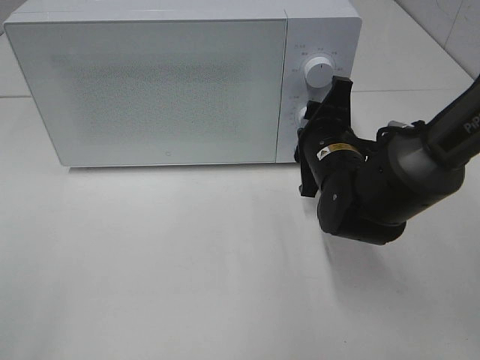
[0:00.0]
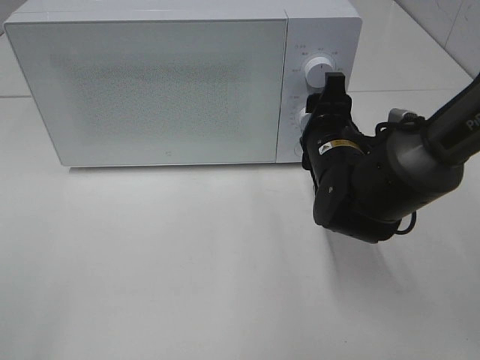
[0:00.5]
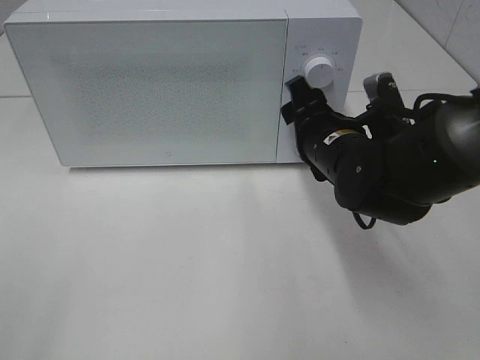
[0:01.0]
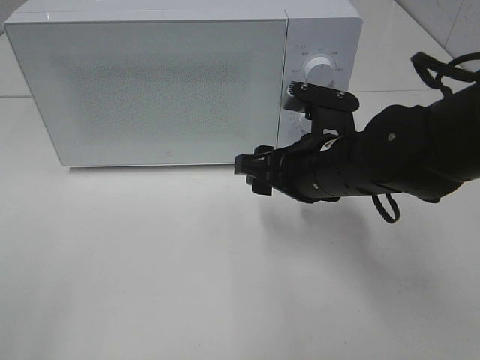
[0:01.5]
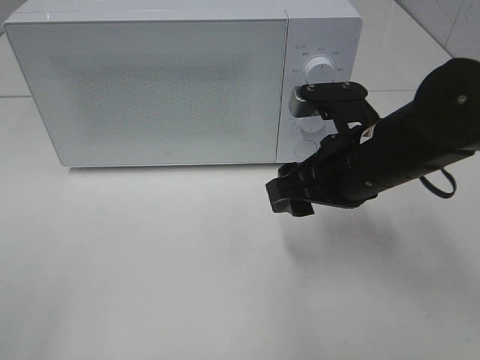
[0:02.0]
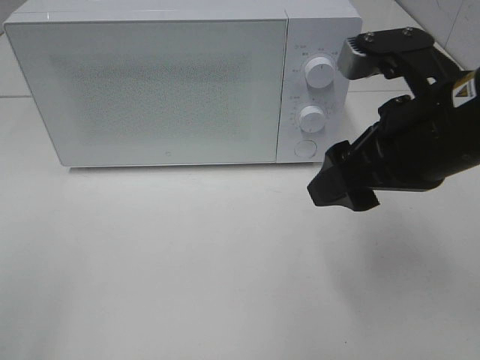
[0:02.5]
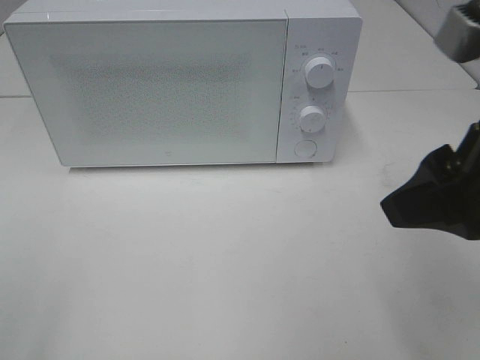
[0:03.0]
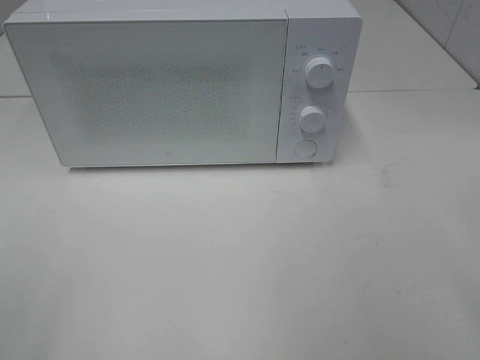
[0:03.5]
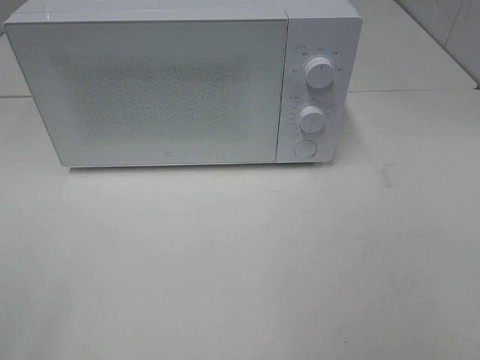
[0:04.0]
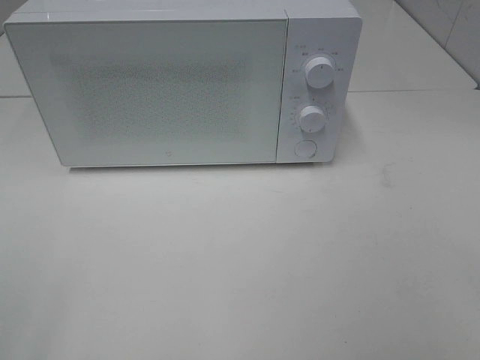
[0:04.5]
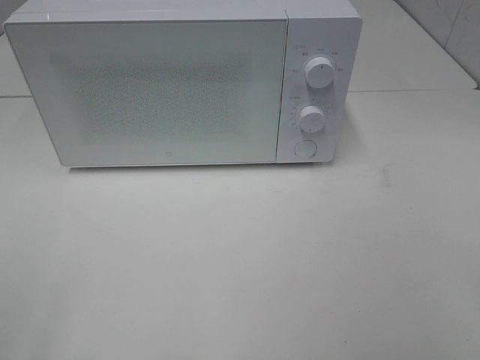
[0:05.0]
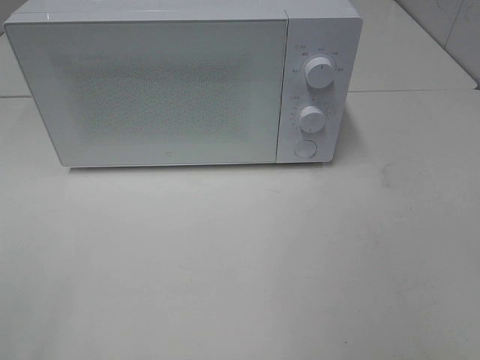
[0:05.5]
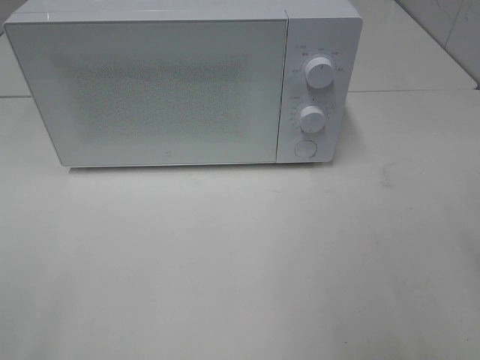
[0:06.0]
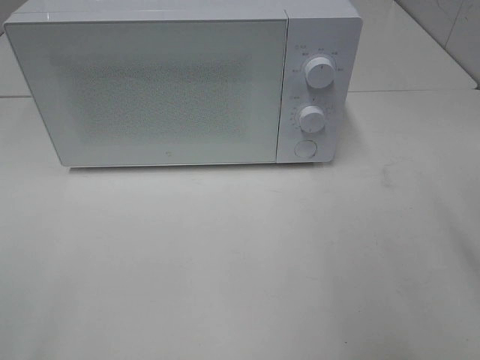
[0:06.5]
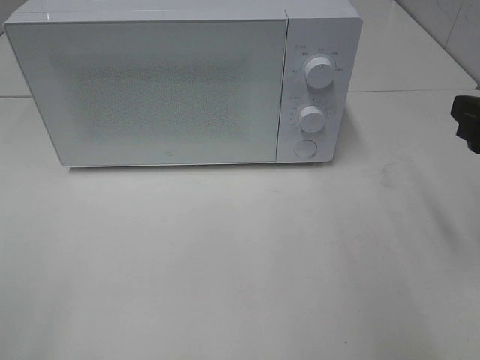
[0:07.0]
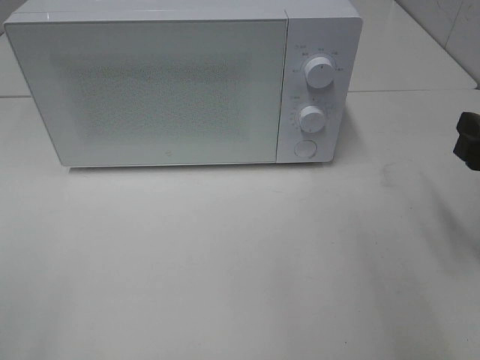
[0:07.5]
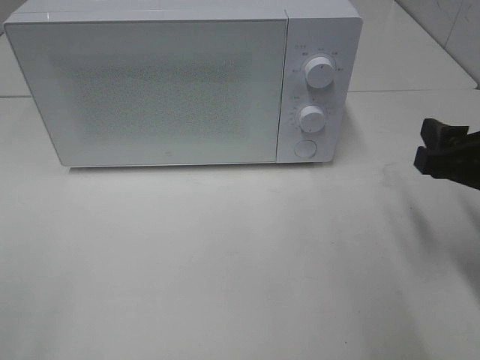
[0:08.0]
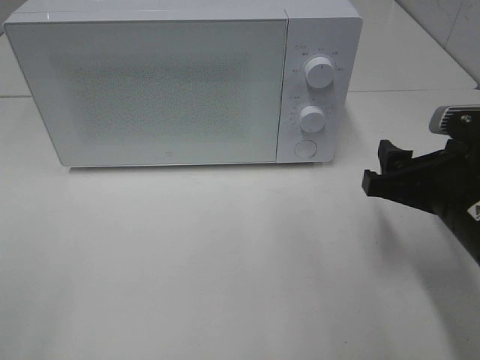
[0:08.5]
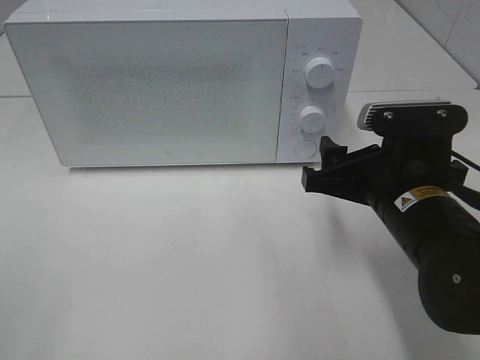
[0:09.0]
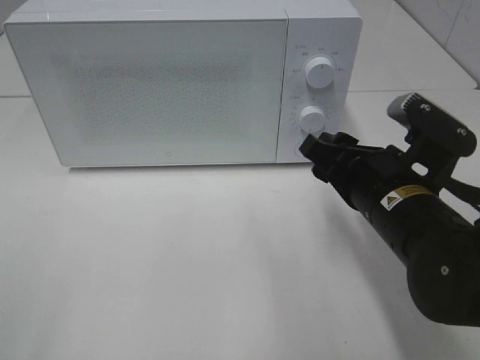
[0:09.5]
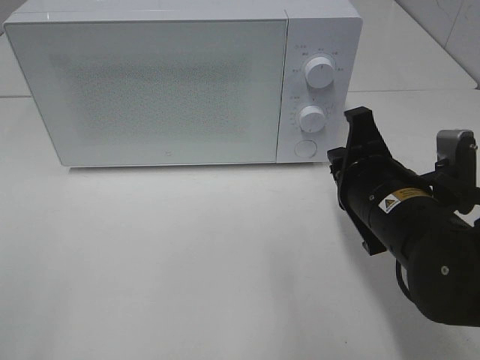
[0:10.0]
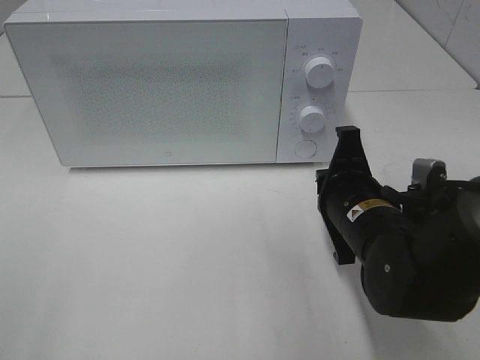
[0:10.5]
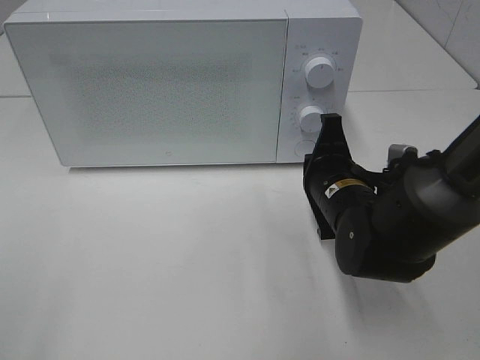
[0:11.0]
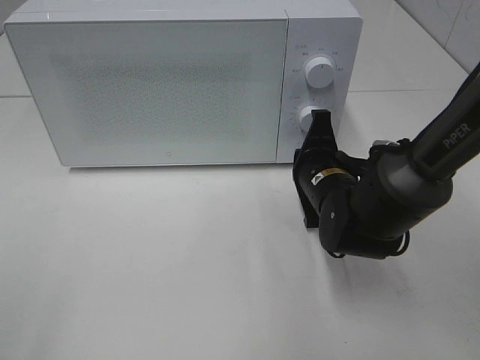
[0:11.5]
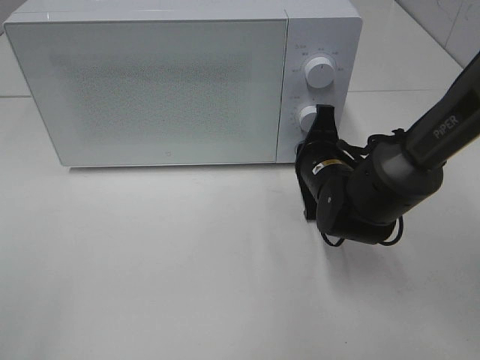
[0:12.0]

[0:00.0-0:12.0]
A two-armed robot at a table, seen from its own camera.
Task of the whole recording: Heat the burger.
0:00.0 to 0:02.0: The right gripper goes some 10 cm upward and backward.
0:02.0 to 0:04.0: The right gripper shifts roughly 35 cm backward, to the right and upward.
0:06.0 to 0:08.0: The right gripper shifts approximately 15 cm downward and forward.
0:08.0 to 0:10.0: The right gripper goes approximately 10 cm to the left, and closes up.
0:10.0 to 0:12.0: The right gripper shifts about 15 cm forward and downward.

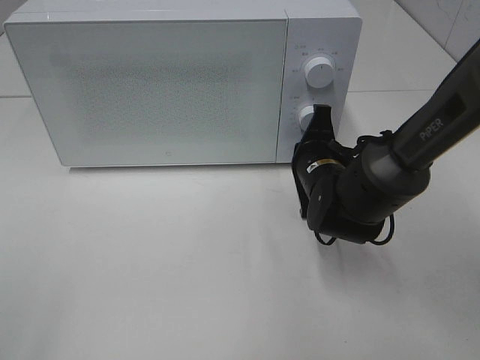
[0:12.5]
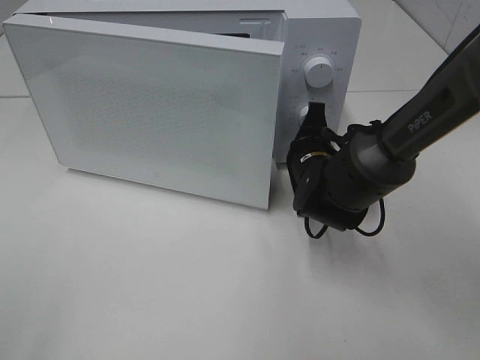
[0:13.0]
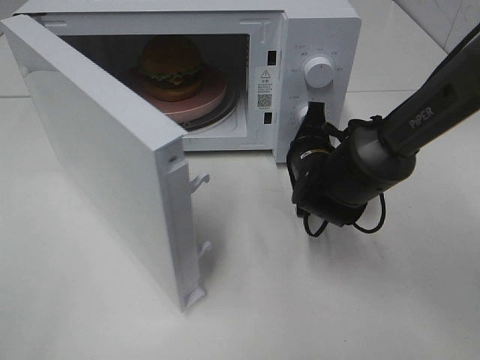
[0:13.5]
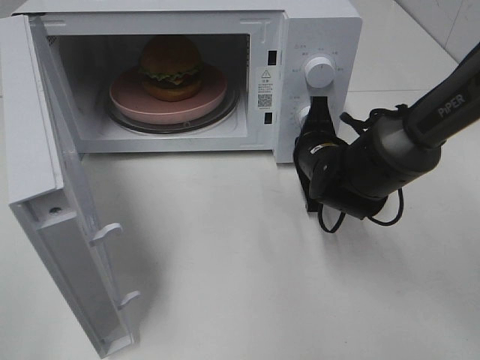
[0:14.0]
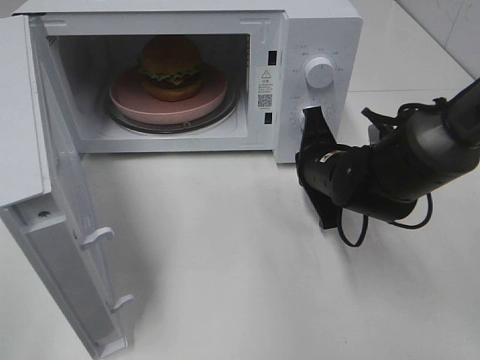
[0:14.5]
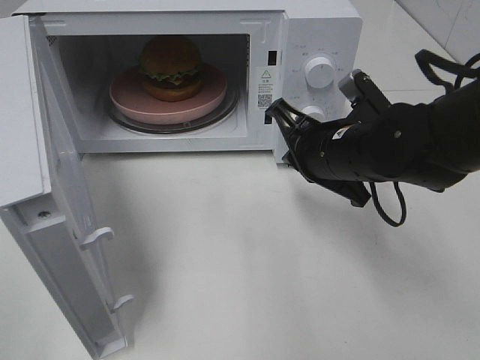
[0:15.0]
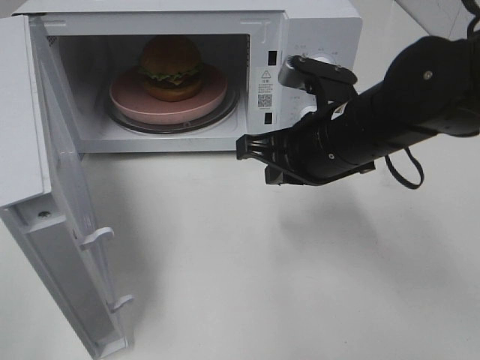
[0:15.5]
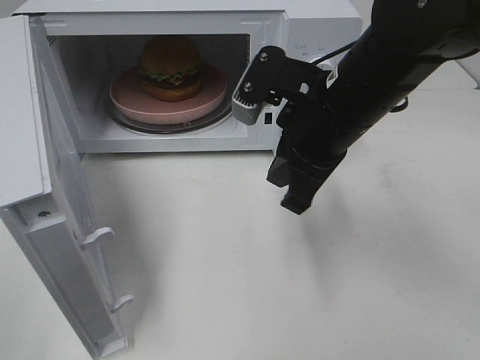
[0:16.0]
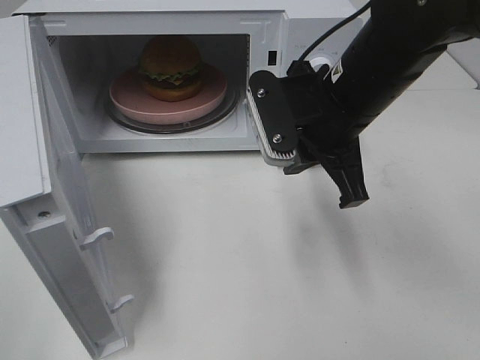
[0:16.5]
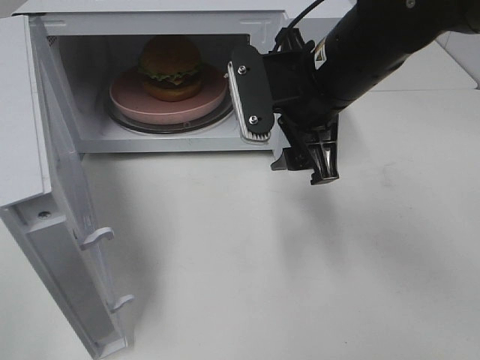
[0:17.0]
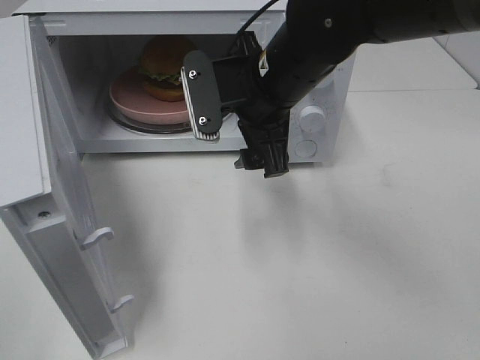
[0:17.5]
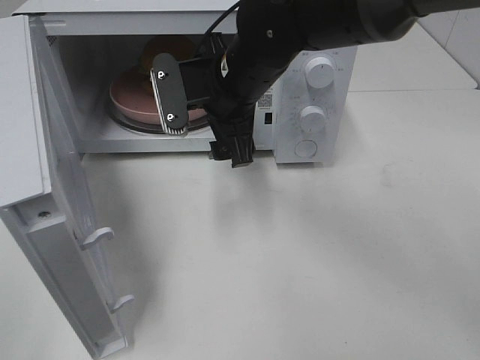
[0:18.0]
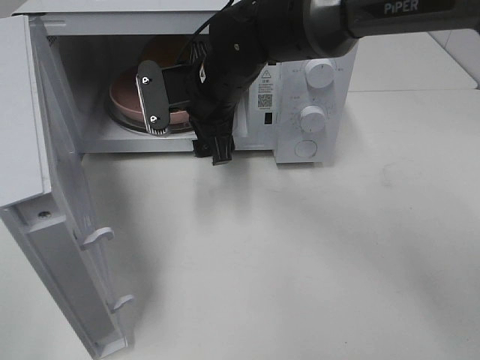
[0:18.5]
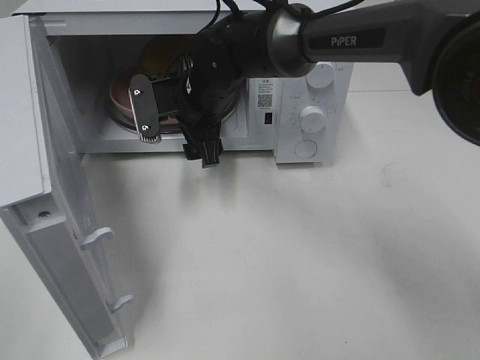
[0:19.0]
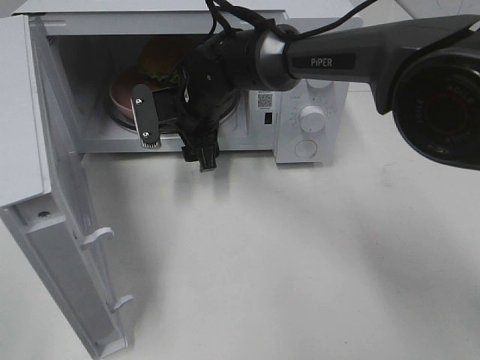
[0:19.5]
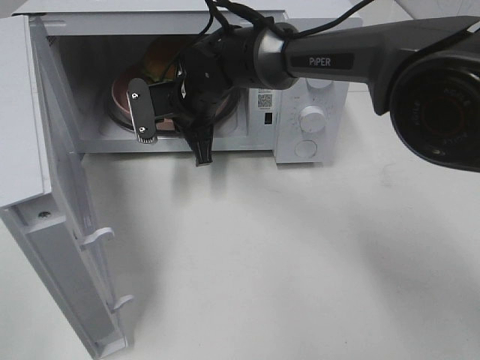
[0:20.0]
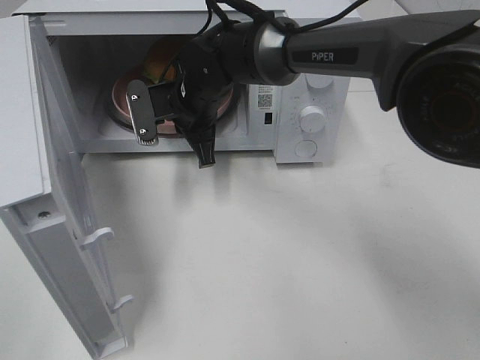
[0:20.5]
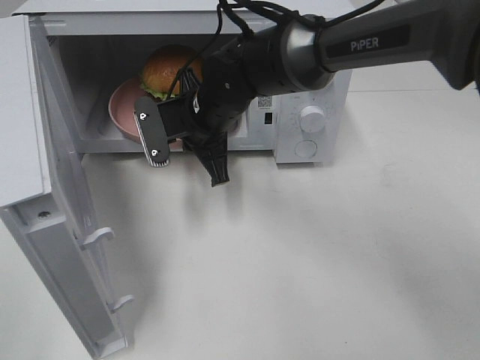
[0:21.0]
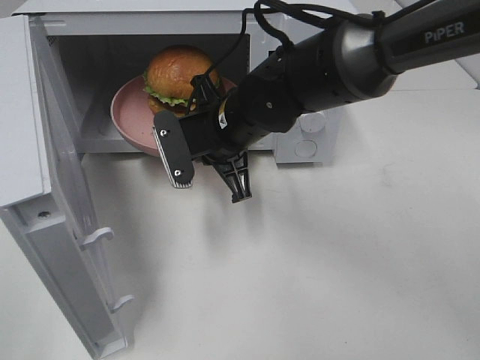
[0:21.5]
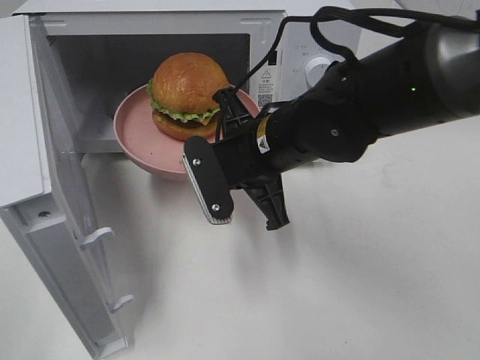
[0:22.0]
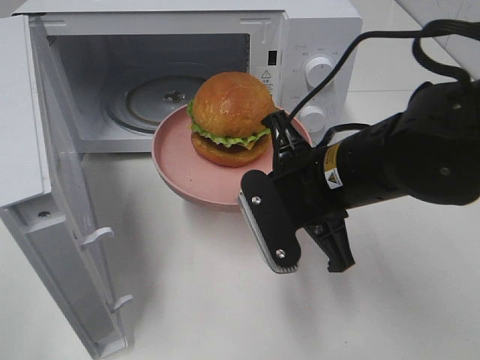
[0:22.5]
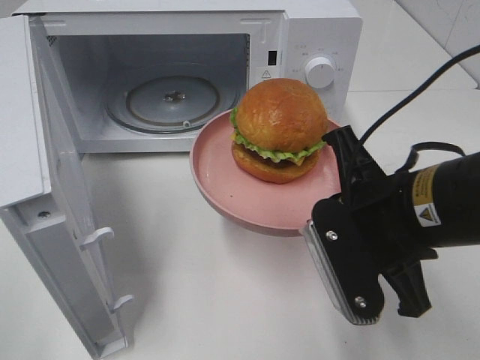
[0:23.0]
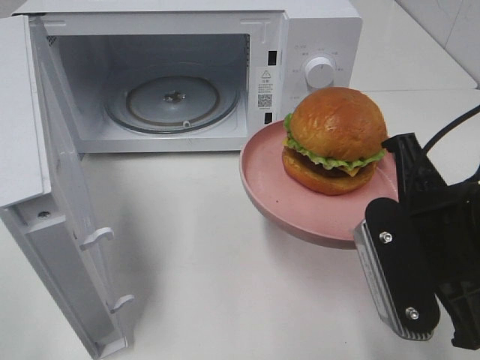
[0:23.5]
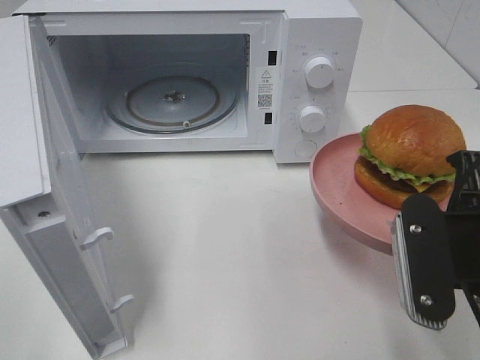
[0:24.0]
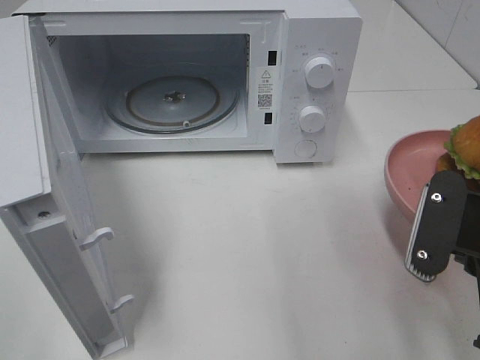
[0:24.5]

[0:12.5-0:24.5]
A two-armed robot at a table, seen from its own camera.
Task of the whole recording: Heat the burger.
Step, 0:14.5 to 0:20.0: Right hand: grab the plate with the hamburger.
0:14.5 to 0:16.5: The right gripper travels upward by some 15 cm.
0:16.5 to 0:18.5: The right gripper moves to the left and forward, about 15 cm, and opens up.
0:18.5 to 0:20.5: The right gripper shifts by roughly 5 cm, and closes its fingers.
0:20.5 to 0:22.5: The right gripper goes about 25 cm backward and to the right.
0:22.5 to 0:24.5: The right gripper travels to the right and backward by roughly 15 cm.

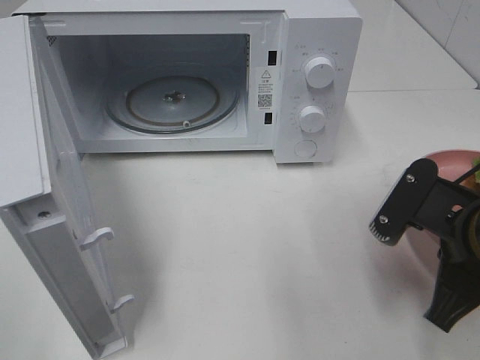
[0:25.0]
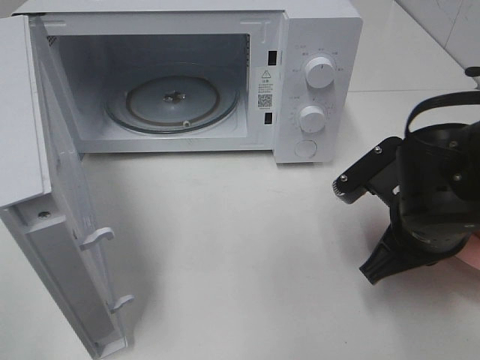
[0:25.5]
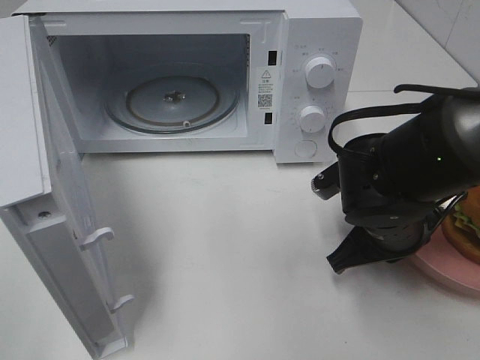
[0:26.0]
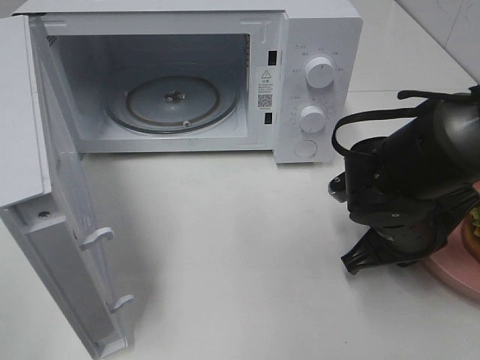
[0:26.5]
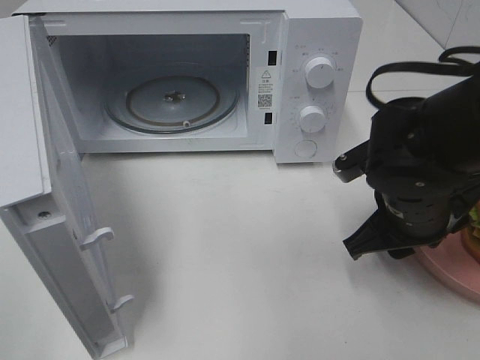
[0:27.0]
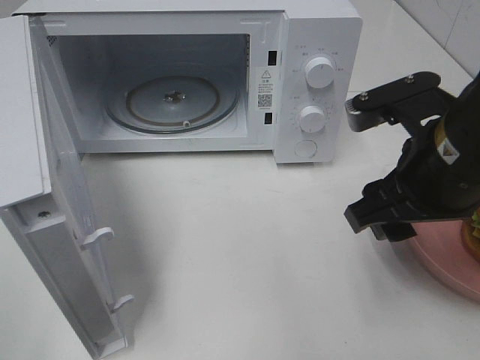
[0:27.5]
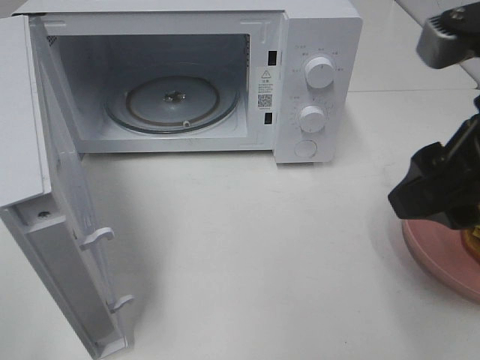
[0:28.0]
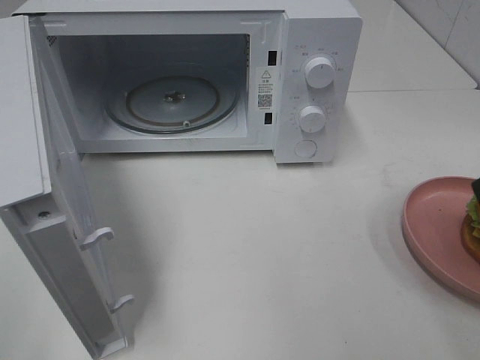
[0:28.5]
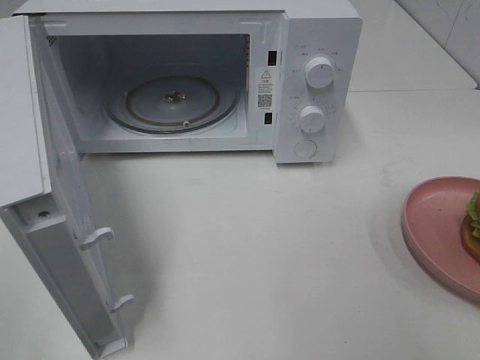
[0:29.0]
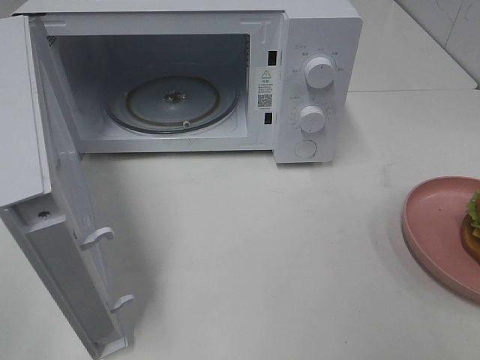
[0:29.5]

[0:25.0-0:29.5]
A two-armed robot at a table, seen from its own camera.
Task of the whole recording: Heat the burger.
0:25.0 to 0:27.0: The right gripper moves forward, approximately 5 cm, and opens its fingers.
0:27.0 to 0:29.5: The right gripper shifts approximately 30 cm backward, upward and to the right.
